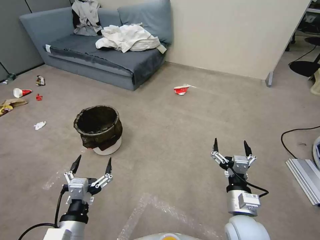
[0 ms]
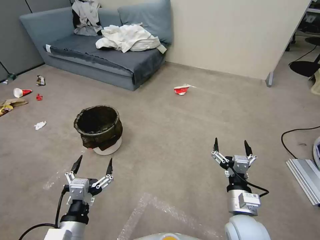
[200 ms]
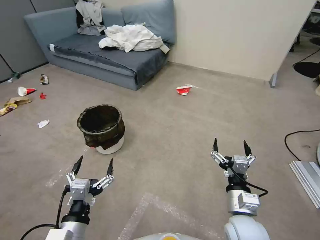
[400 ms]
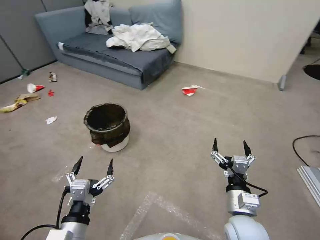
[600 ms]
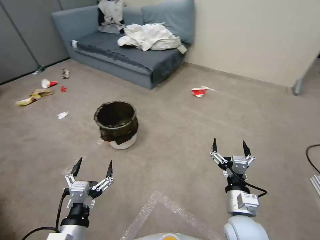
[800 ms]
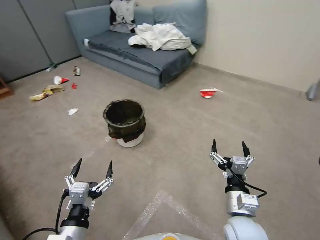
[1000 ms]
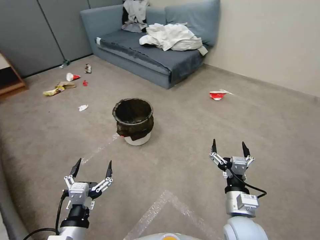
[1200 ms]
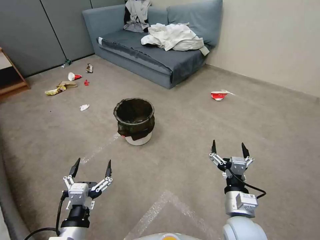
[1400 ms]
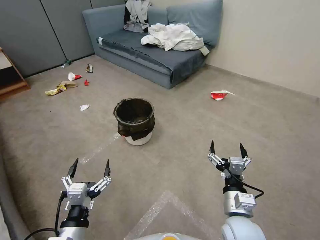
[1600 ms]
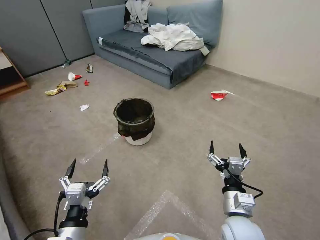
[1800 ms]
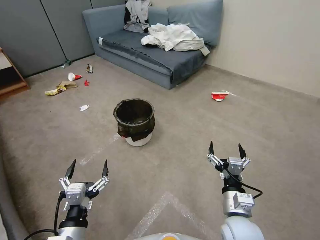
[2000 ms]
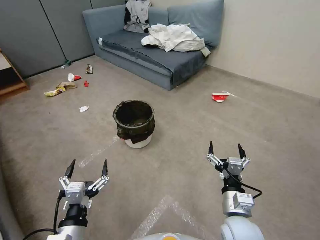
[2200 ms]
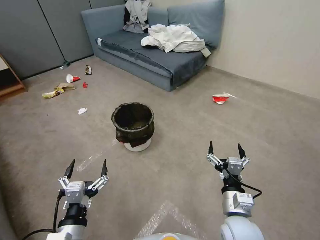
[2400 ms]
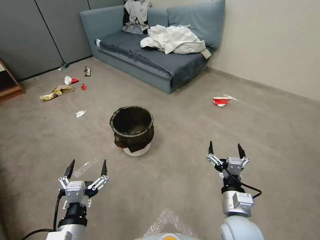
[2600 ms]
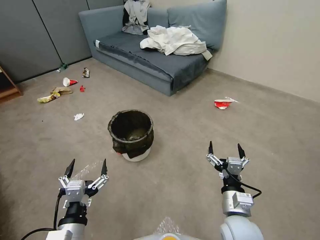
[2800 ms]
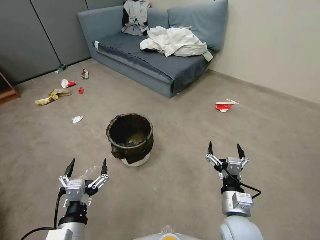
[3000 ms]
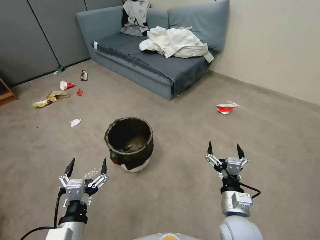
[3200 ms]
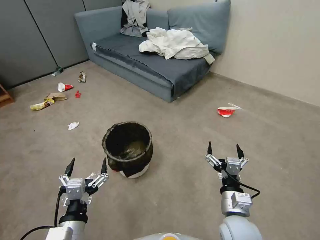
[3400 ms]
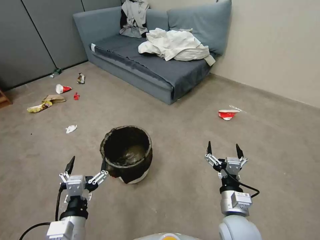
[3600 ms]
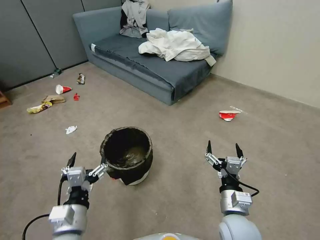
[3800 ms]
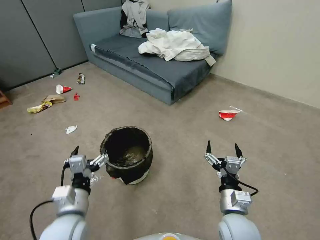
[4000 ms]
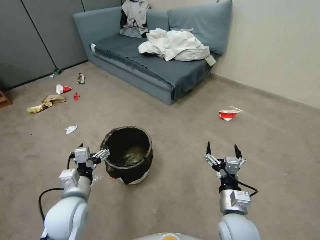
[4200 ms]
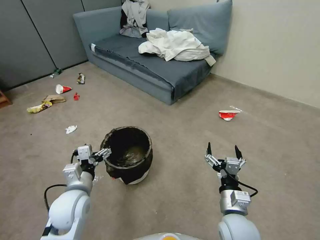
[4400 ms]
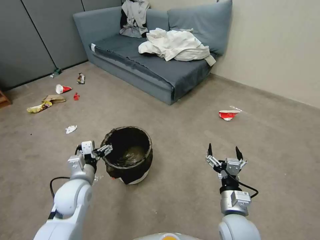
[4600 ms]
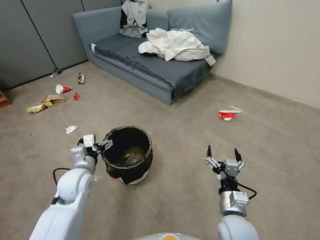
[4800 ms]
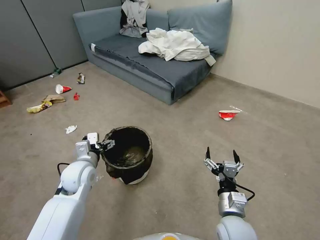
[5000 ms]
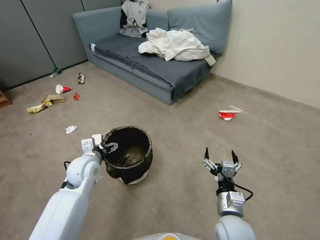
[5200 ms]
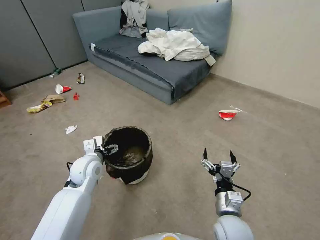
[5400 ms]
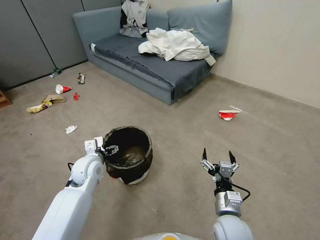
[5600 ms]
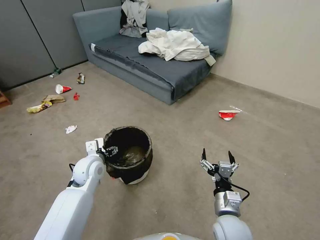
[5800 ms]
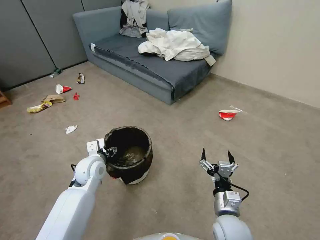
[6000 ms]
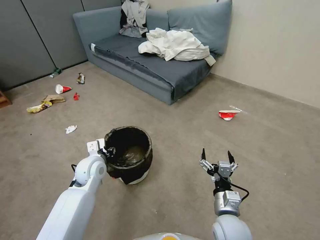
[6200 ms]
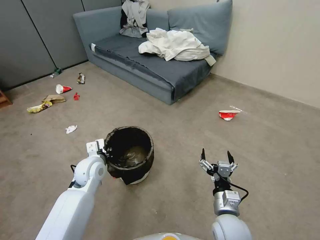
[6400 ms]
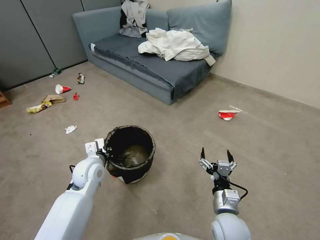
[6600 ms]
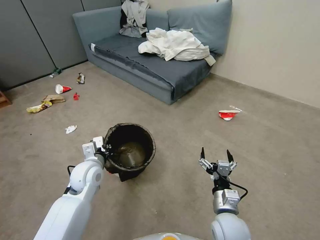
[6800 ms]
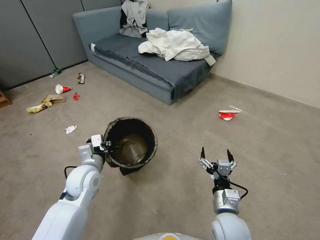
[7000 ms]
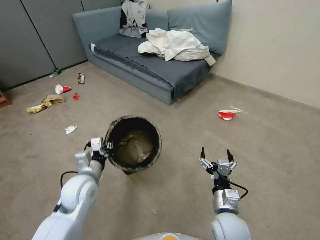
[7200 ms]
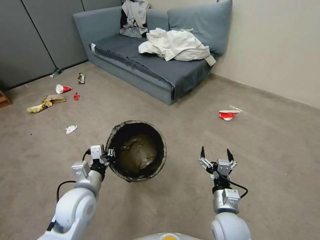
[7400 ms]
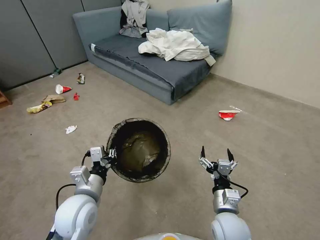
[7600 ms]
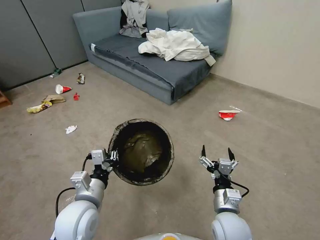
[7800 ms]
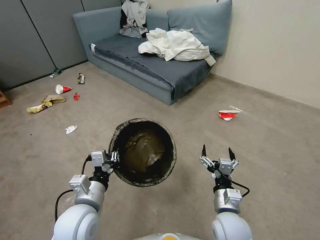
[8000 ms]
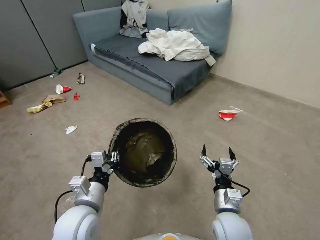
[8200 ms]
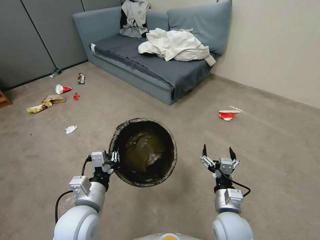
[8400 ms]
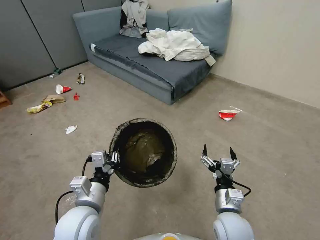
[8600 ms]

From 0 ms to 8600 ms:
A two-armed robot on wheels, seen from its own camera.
Task of the whole recording: Pick up the trash can from the floor.
From 2800 ms to 4400 ms: The left gripper is displaced forward by roughly 15 cm.
From 4400 ms to 5800 ms: The left gripper moves forward, about 10 cm.
From 5800 ms to 7200 ms: The left gripper goes some 5 cm backward, and closes.
From 7200 ms to 8600 ms: The left gripper moves backward, approximately 10 cm.

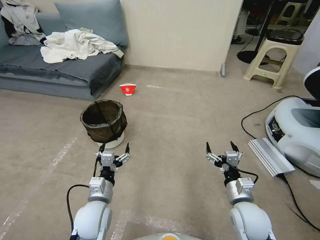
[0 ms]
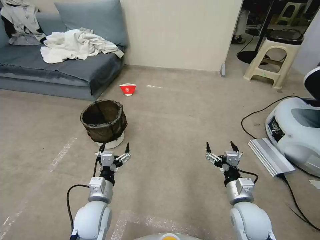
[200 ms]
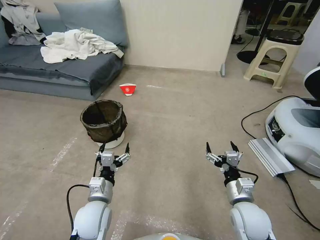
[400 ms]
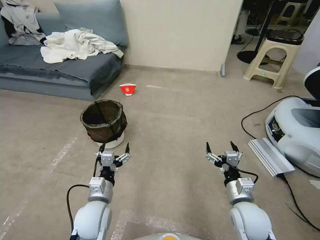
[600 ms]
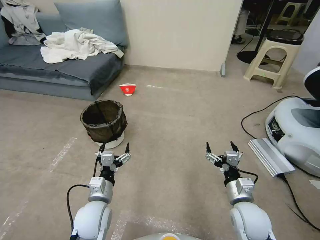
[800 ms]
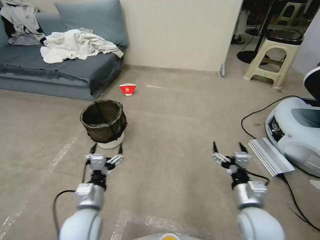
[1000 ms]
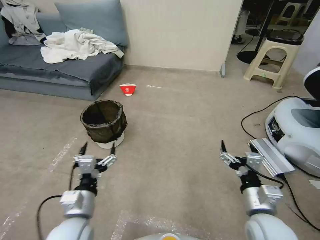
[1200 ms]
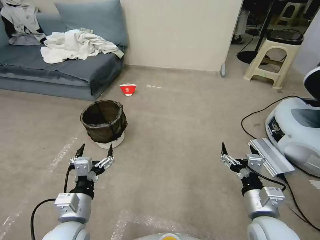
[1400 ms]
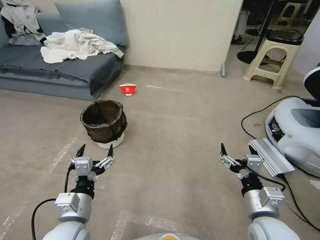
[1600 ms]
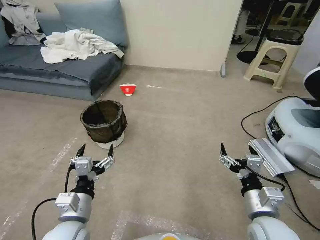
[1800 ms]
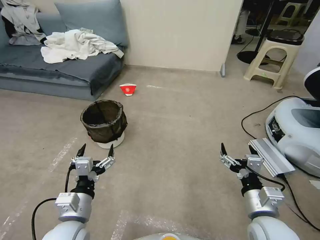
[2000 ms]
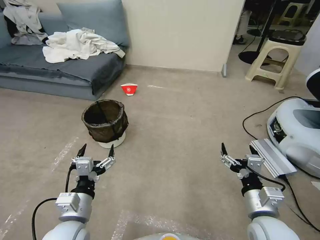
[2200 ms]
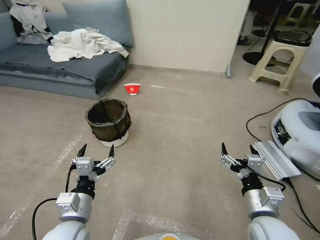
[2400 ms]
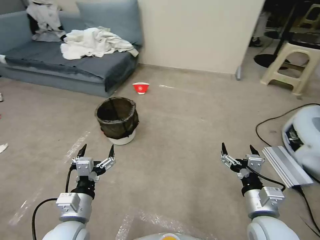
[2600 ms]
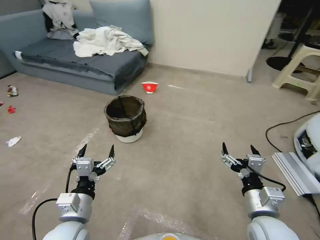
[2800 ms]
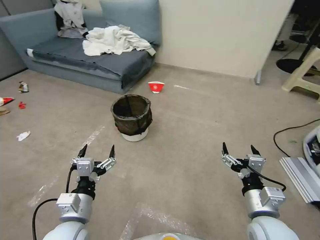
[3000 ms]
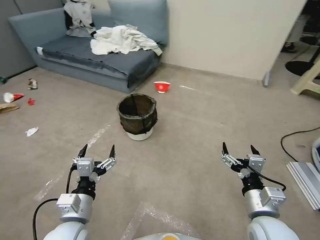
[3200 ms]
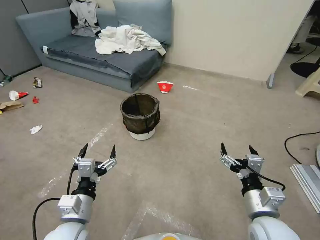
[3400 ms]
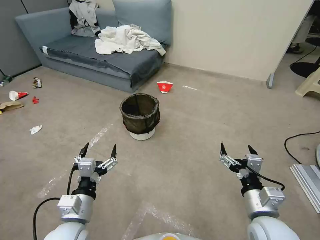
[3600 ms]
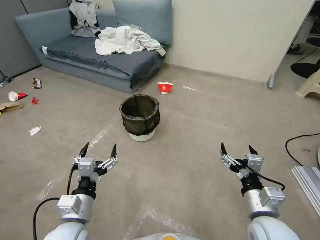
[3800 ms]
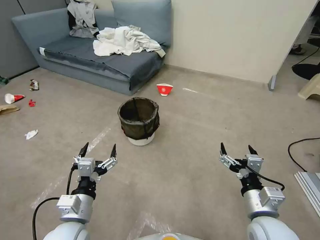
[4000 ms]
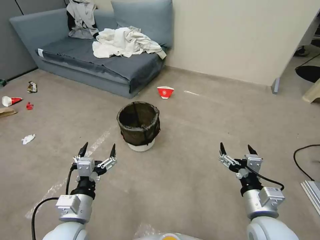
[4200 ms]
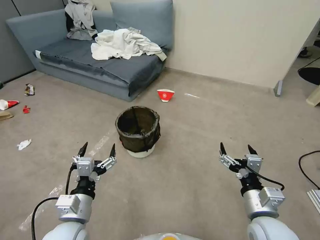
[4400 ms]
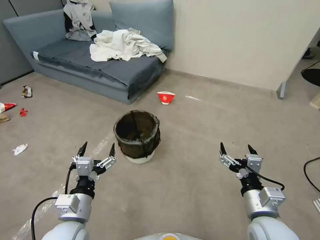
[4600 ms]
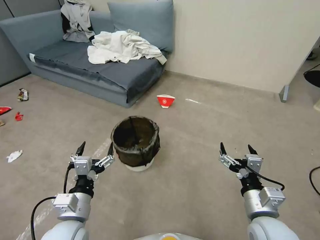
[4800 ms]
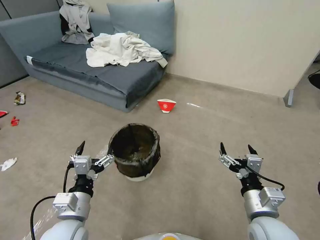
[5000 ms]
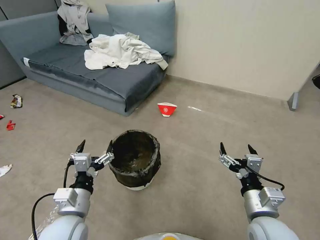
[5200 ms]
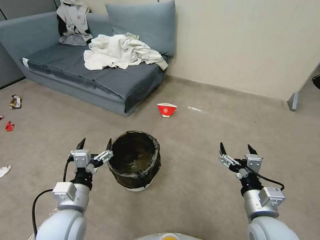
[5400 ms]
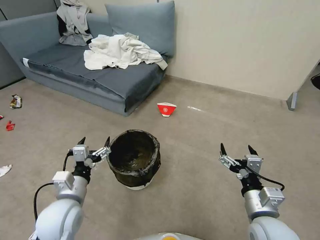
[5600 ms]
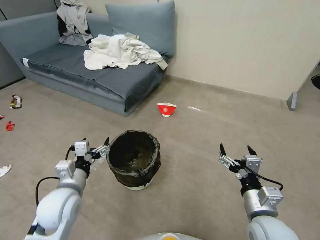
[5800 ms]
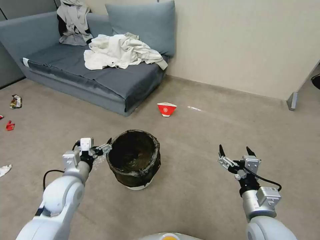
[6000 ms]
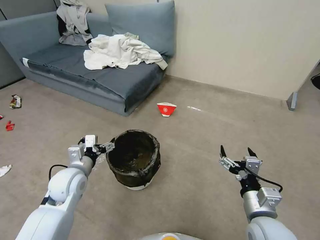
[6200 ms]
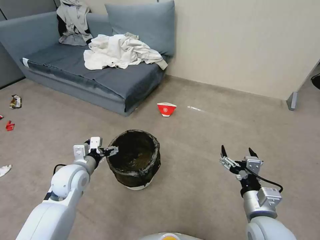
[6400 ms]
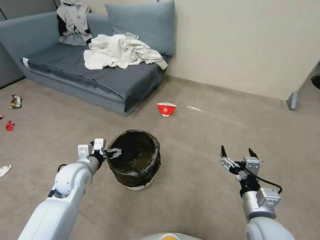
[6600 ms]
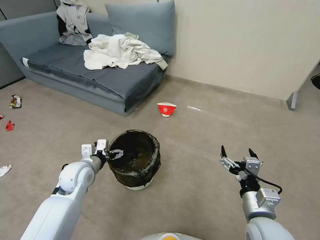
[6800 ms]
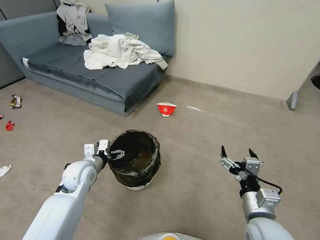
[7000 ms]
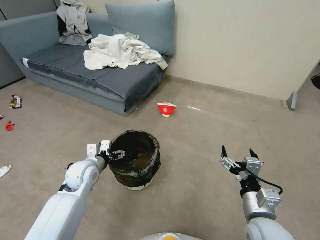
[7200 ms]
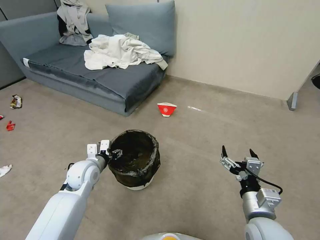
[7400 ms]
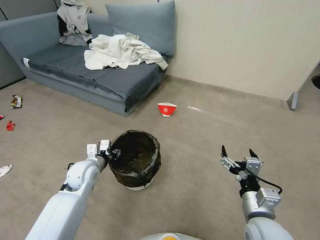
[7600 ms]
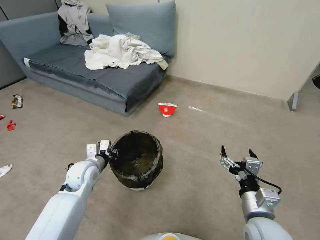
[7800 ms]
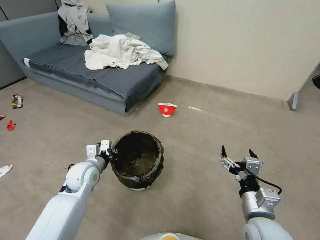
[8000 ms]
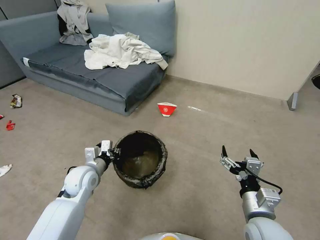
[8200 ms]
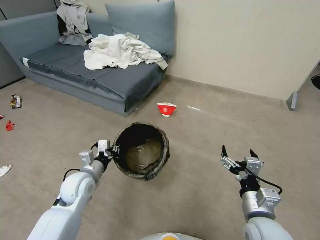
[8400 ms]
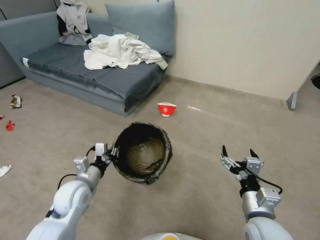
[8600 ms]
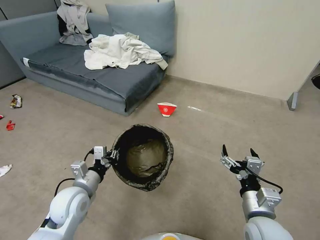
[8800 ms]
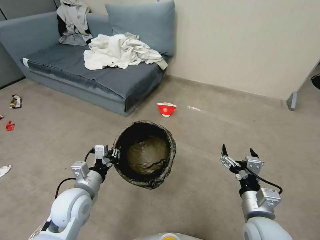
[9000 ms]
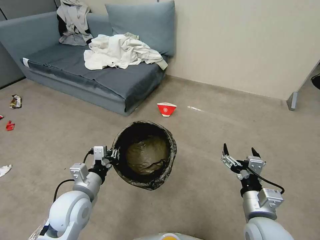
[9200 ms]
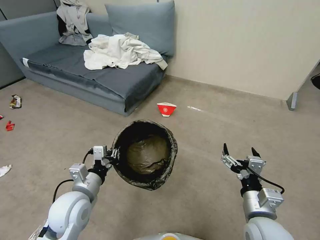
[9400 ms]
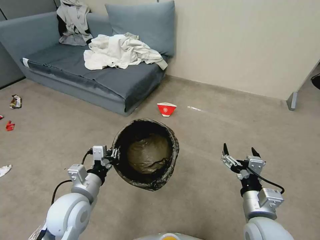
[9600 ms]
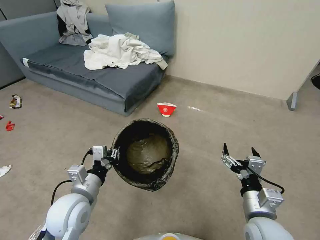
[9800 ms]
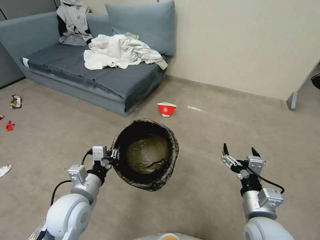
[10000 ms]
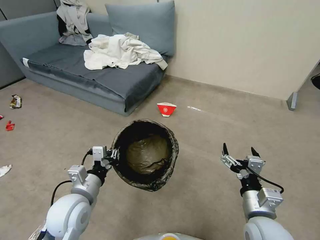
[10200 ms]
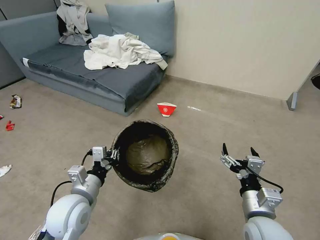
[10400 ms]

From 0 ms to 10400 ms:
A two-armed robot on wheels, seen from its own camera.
Task of the whole recording: Pick up the trash can from the floor.
From 4400 ms to 6000 ms: The left gripper travels forward by roughly 10 cm.
From 6000 ms to 7400 ms: The left gripper is displaced forward by approximately 10 cm, and closes.
From 7400 ms to 9000 ms: The left gripper moves backward, roughly 10 cm, and closes.
From 9000 ms to 10400 ms: The grippers move only a little.
